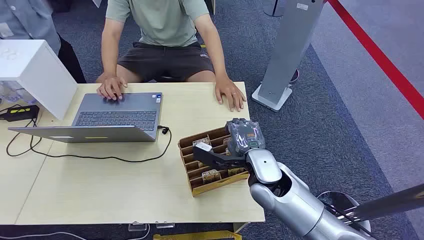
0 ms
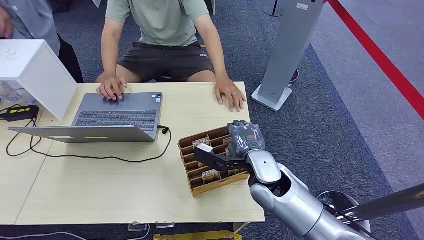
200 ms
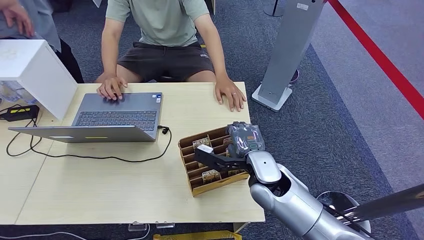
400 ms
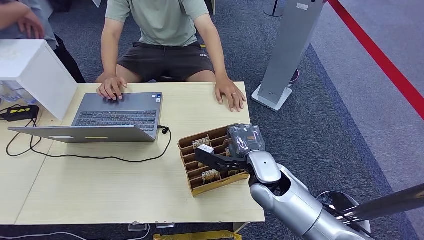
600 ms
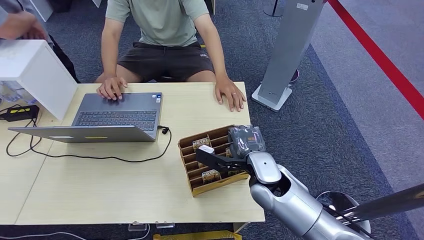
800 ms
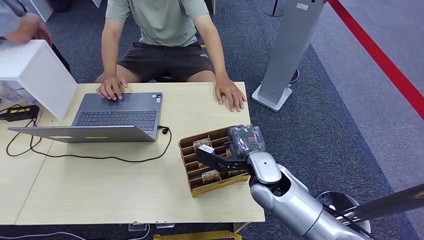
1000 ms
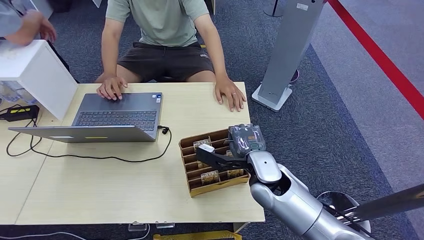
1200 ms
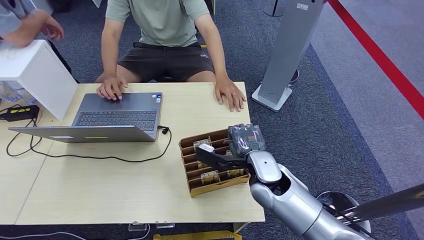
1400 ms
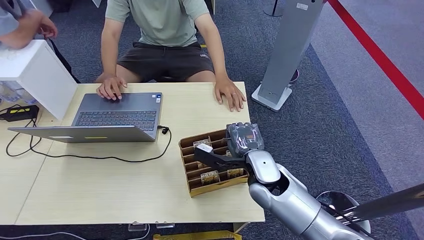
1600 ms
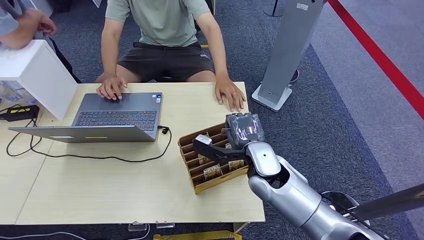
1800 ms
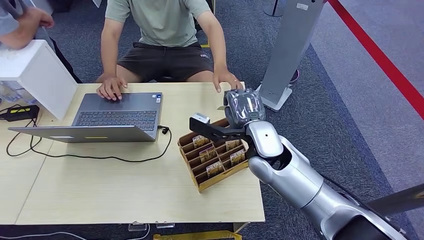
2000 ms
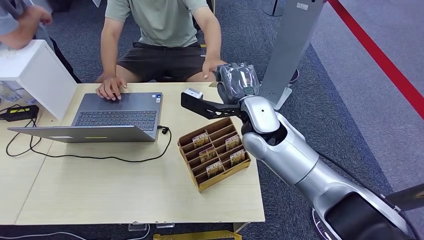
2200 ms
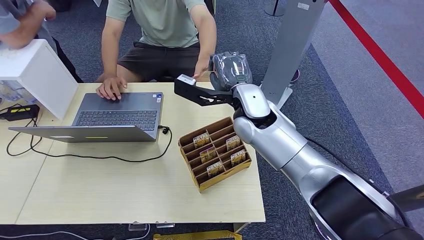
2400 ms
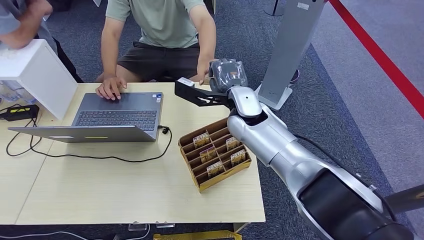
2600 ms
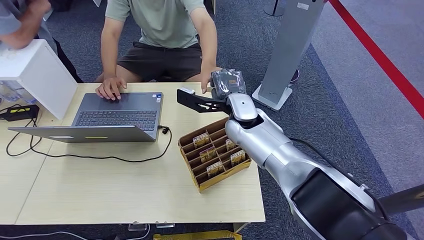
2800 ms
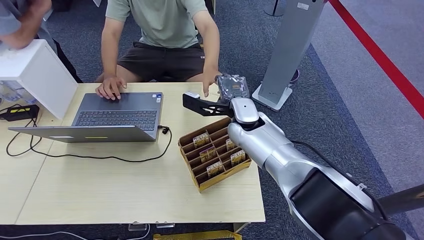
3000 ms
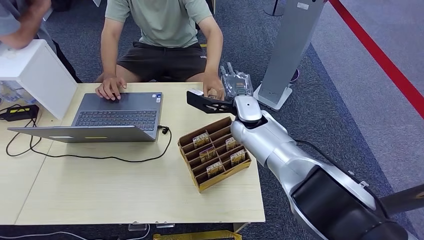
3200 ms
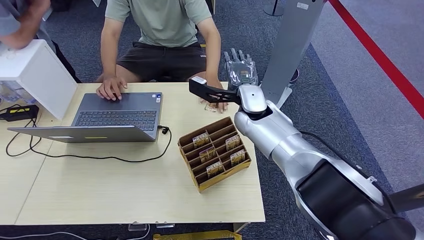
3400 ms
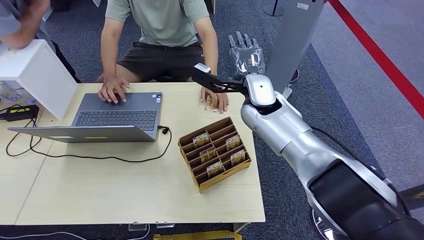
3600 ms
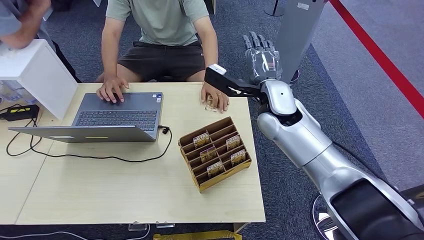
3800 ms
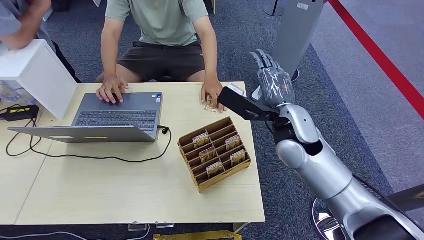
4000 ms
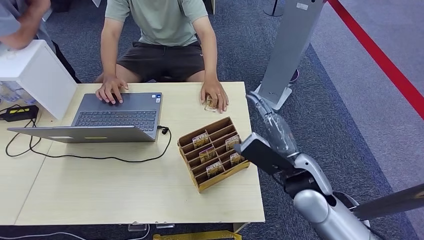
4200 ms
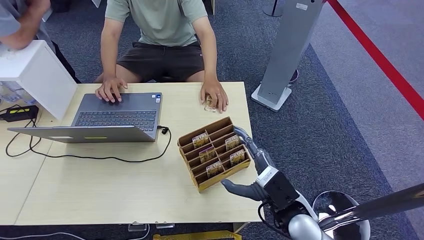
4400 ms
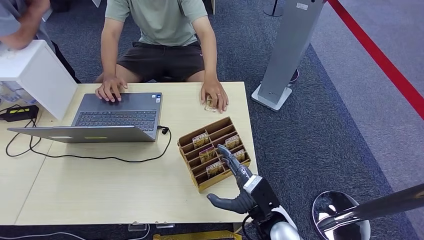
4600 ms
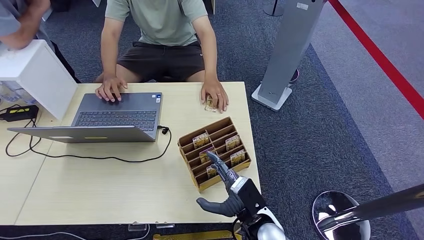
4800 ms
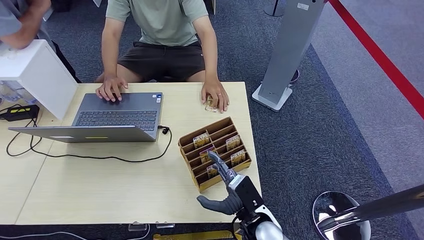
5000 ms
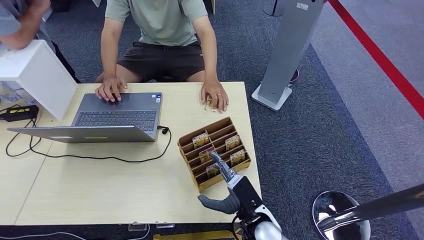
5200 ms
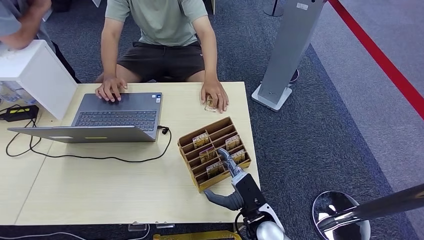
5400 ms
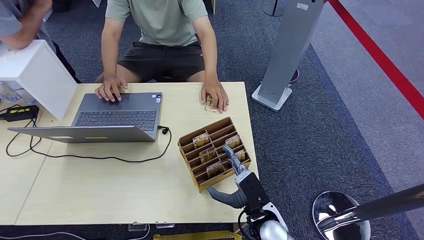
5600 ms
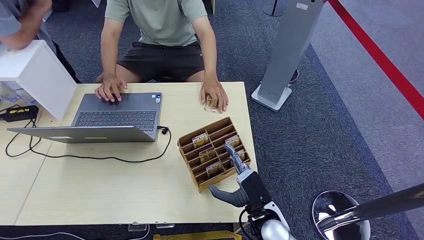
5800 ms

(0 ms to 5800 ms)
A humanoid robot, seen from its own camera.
Step, 0 ms - 1800 ms: Pick up the key card from the card box.
Step, 2000 ms - 5800 ms: Hand the key card to the target.
1400 ms - 2800 ms: The right hand goes about 15 cm forward, upward and to the left.
2800 ms - 4400 ms: The right hand shifts about 25 cm backward, to the right and downward.
4400 ms - 5800 ms: The right hand shifts some 10 cm downward.
